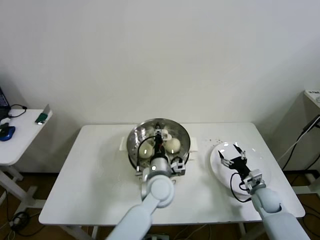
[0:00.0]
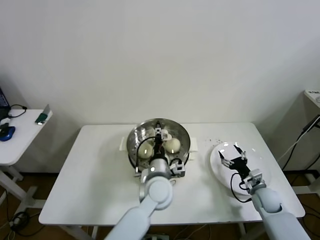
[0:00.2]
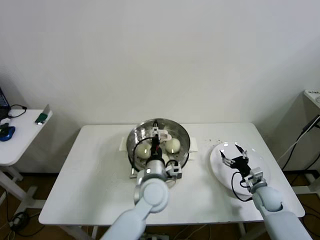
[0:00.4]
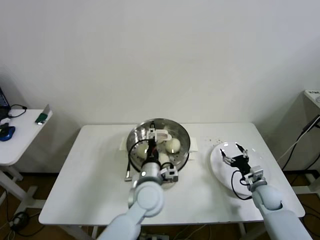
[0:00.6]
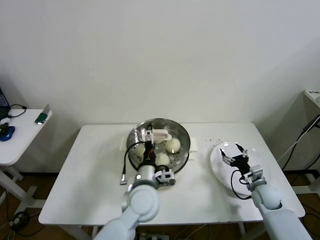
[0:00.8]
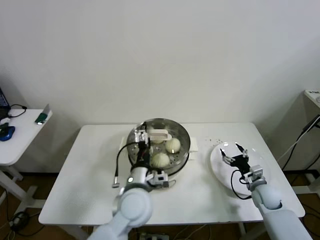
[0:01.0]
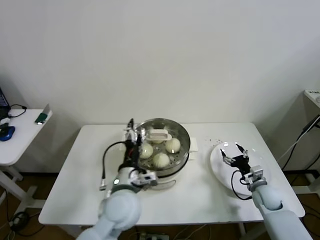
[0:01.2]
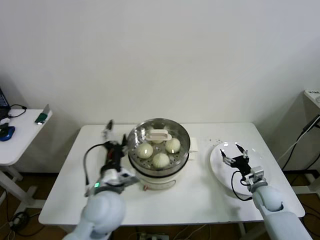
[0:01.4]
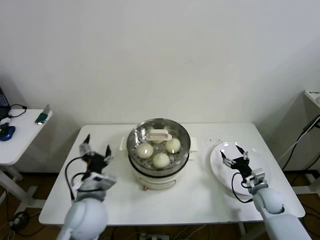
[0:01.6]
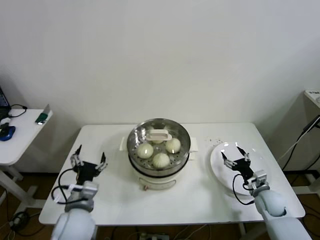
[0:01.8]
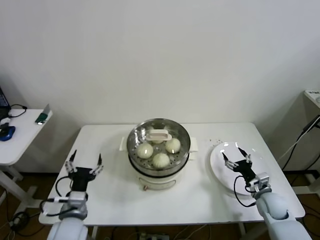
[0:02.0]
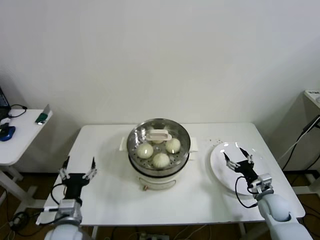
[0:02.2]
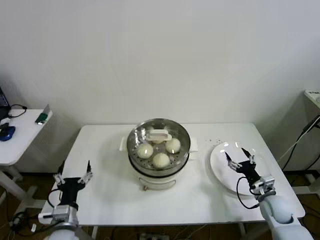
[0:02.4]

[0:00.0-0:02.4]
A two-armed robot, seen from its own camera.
0:00.0 to 0:01.2: The left gripper shifts roughly 10 cm to the left, backward and upward, and opens.
0:01.2 to 0:02.4: The left gripper shifts roughly 20 cm to the left and downward.
